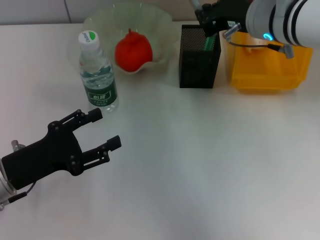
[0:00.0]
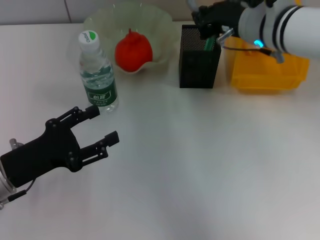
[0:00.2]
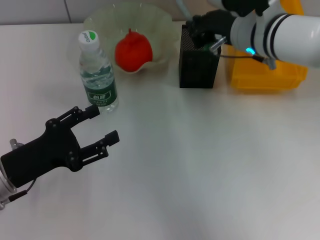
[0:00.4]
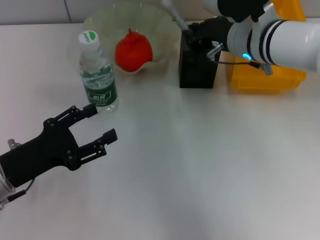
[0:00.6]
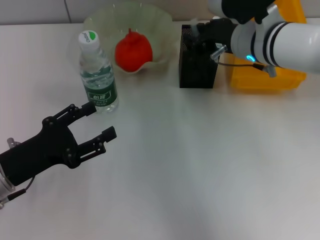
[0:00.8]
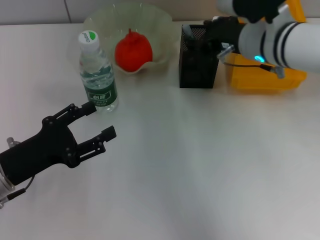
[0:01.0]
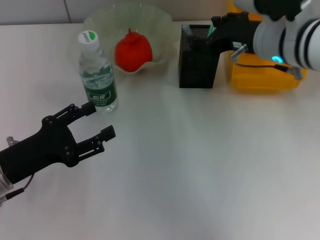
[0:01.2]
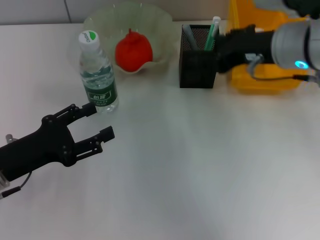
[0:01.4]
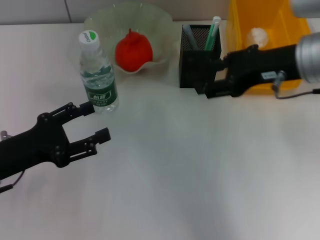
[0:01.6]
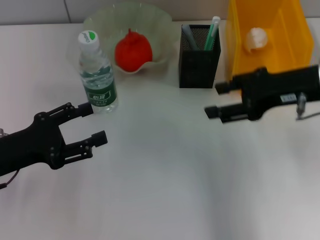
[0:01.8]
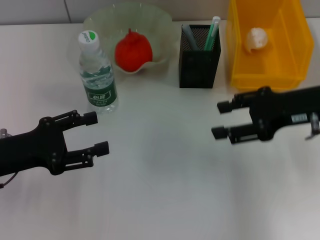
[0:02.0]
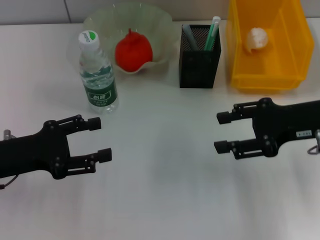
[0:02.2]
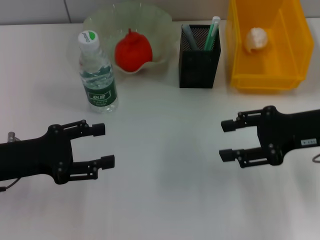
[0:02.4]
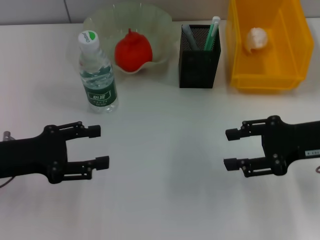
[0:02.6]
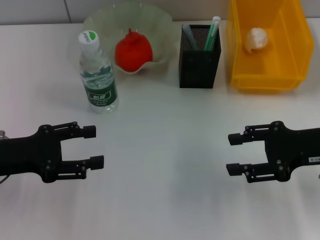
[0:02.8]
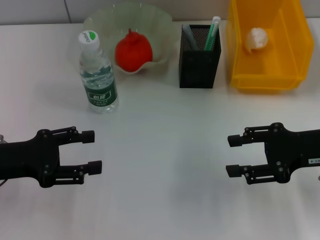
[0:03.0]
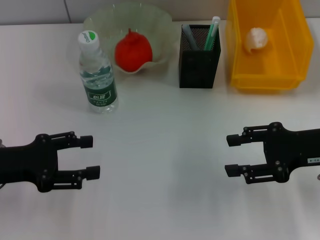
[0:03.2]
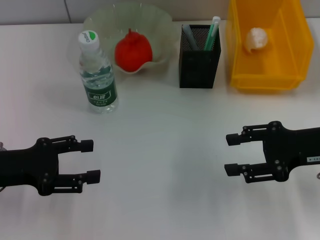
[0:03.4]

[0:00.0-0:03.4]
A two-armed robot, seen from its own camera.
0:00.0 to 0:01.6: The right gripper heads backward and to the right, covering approximately 10 cm, and opens up.
0:01.6 to 0:03.4: The right gripper heads downward, to the right and backward, covering about 10 cm.

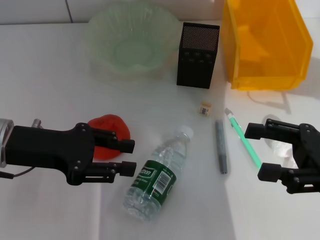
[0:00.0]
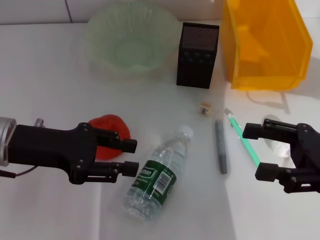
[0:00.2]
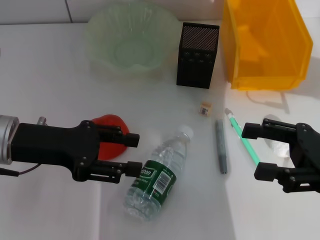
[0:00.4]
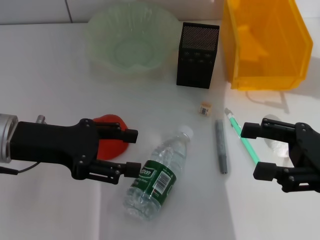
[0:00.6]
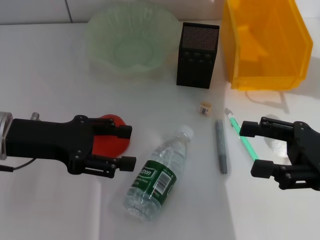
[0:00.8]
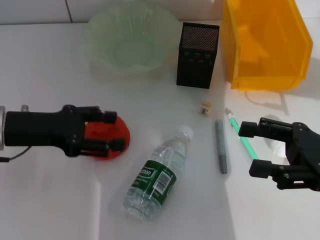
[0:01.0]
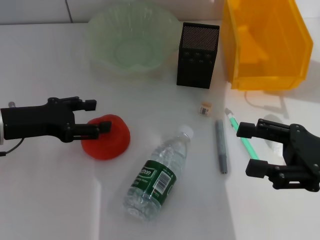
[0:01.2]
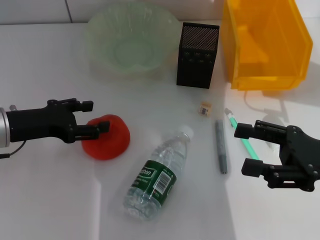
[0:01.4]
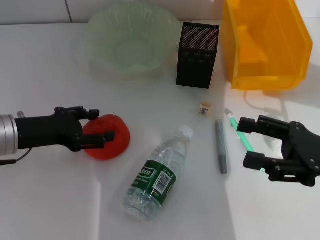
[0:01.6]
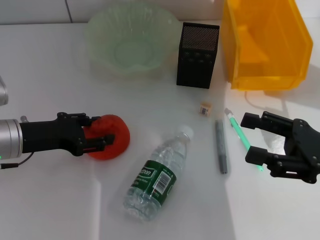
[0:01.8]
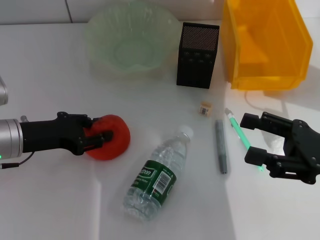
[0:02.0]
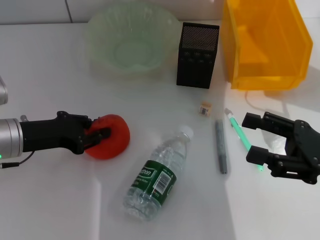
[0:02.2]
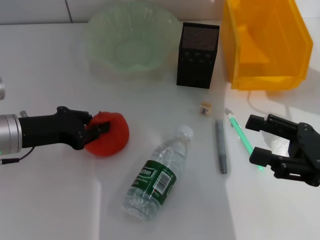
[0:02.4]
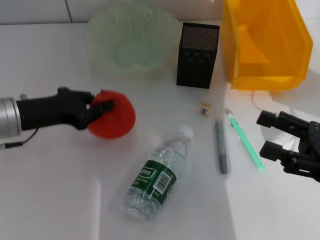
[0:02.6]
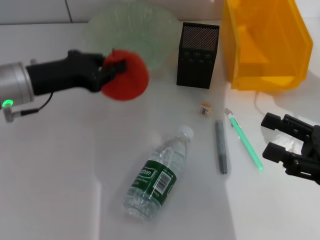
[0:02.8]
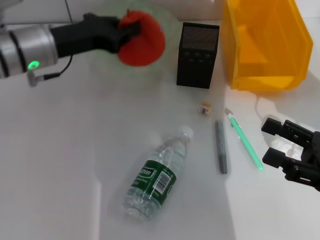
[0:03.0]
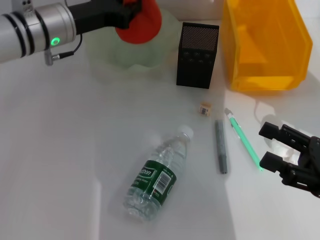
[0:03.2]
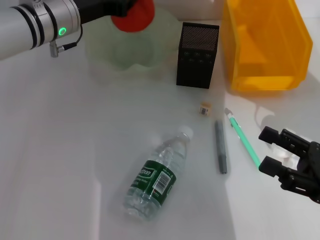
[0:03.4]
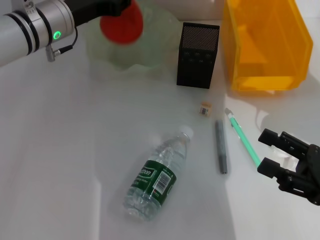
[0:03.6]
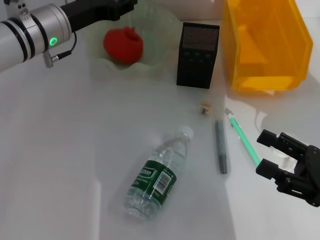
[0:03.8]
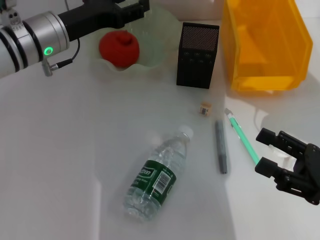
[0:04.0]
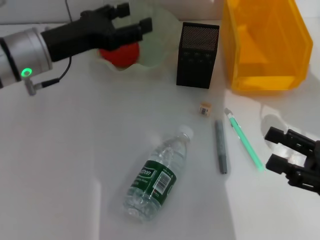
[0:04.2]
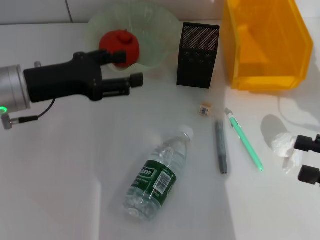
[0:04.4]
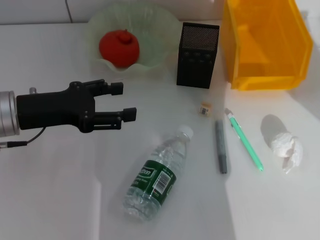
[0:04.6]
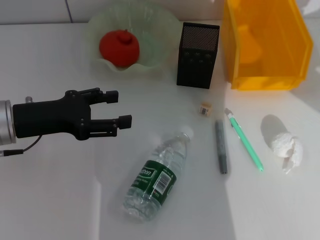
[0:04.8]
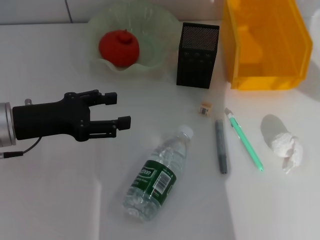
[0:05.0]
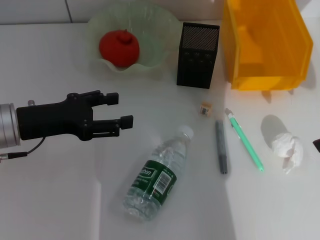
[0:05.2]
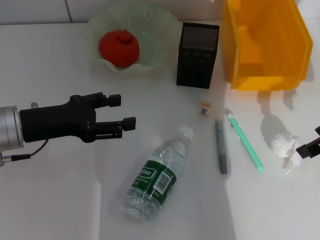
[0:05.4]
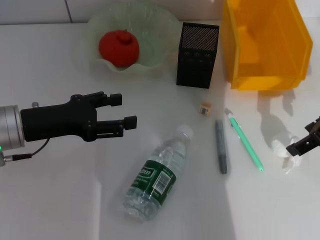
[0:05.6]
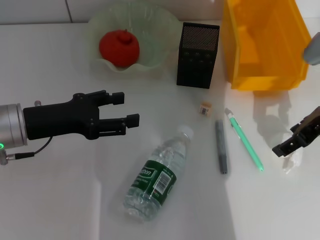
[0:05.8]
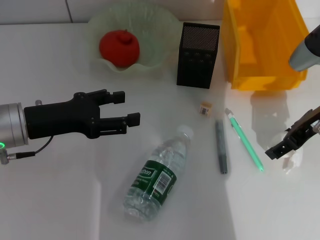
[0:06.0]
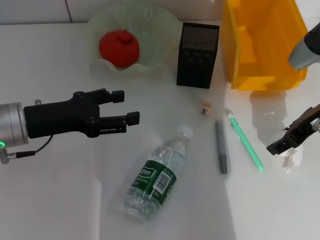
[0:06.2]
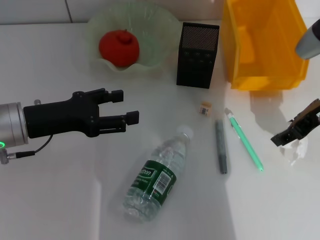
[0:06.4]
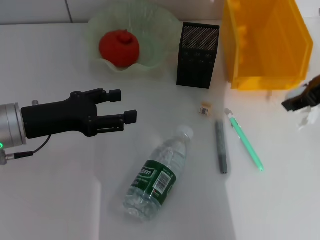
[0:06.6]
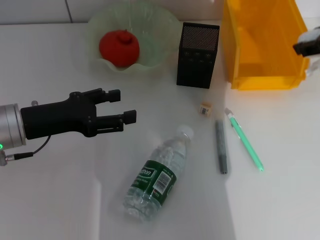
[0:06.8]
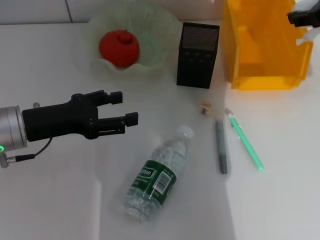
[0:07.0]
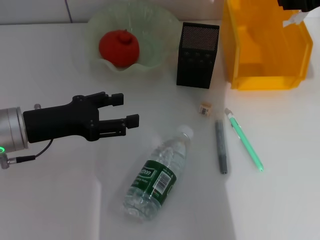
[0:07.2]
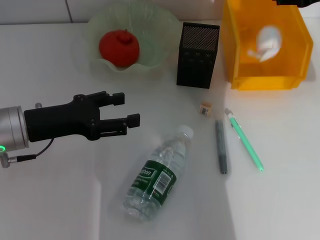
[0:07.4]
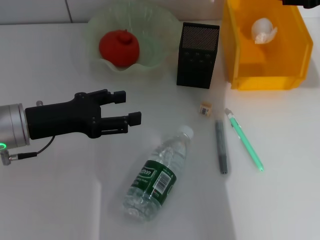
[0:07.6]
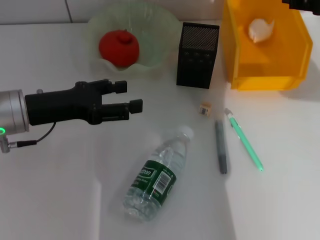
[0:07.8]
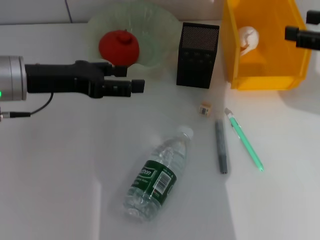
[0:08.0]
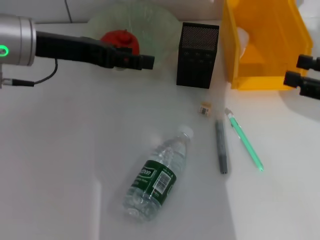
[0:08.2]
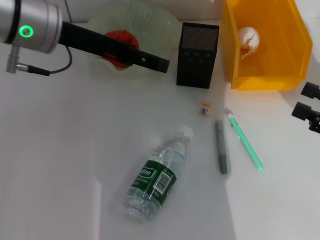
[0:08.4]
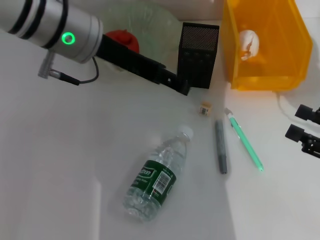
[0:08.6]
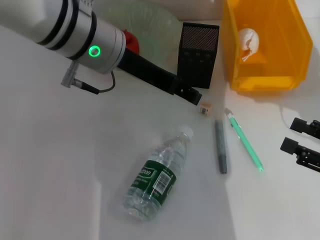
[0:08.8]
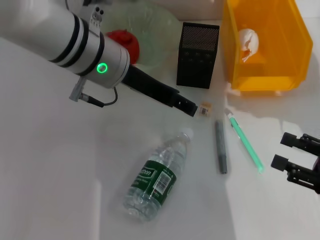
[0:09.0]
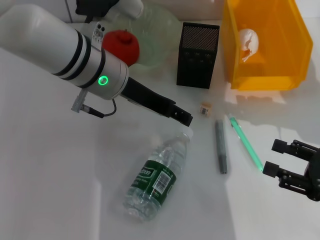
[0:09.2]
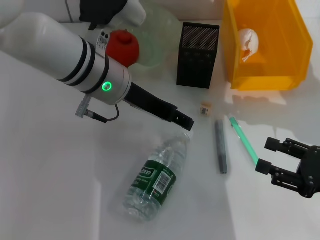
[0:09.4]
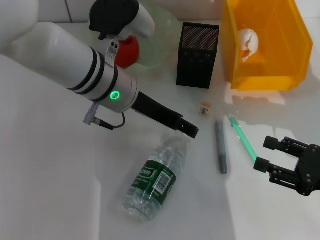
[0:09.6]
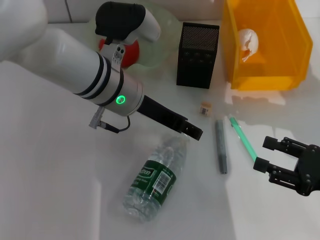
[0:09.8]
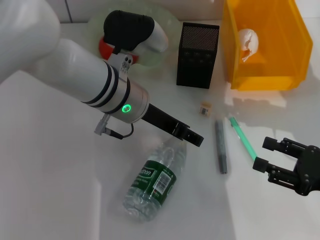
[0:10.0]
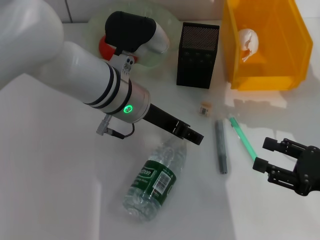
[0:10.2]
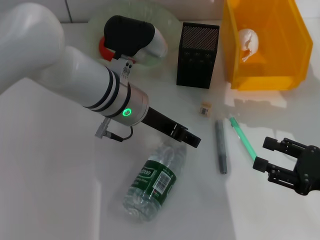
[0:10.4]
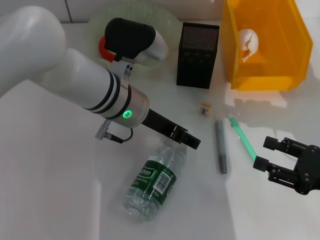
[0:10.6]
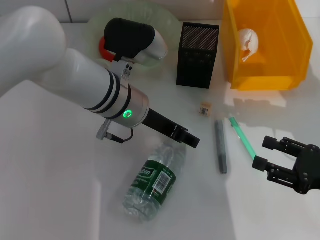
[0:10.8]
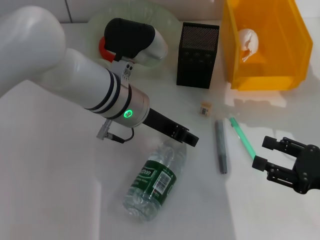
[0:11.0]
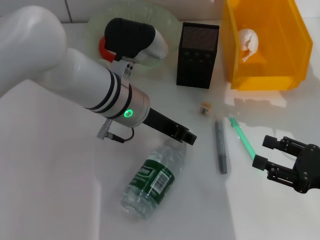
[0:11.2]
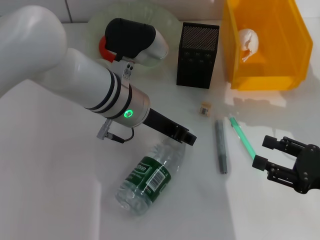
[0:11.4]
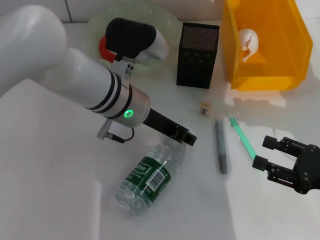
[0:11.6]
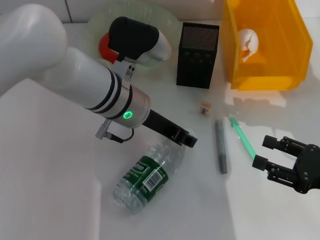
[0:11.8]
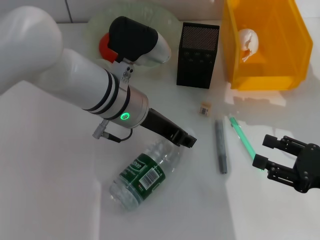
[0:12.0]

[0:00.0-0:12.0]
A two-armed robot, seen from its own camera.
Step, 0:00.0 to 0:02.2: Grab the orange with the left hand.
Step, 0:02.4 to 0:04.0: Place the orange into the fruit bowl with the left hand.
Step, 0:04.2 to 0:06.0: Grab the paper ball with the right hand.
Step, 0:06.2 to 0:07.4: Place the paper ball into the trash can with the right hand.
Step, 0:07.8 to 0:11.2: Grab the water bottle with the left hand.
0:00.0 to 0:01.6: The left gripper changes place by roughly 5 cm.
0:01.6 to 0:03.0: The left gripper is displaced forward, upward and to the right by some 15 cm, and closes its fingers.
0:03.0 to 0:04.4: The right gripper changes place by about 5 cm. The left gripper travels backward by about 5 cm, and opens.
0:04.4 to 0:06.0: The right gripper moves forward and to the left, about 20 cm.
0:06.0 to 0:07.6: The right gripper shifts about 10 cm upward.
0:07.6 to 0:09.0: The left gripper goes approximately 20 cm to the right, upward and forward, while the right gripper goes approximately 25 cm backward and downward.
0:09.0 to 0:10.4: The left gripper shifts approximately 5 cm downward.
0:10.4 to 0:12.0: The left gripper closes up.

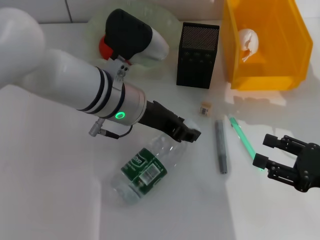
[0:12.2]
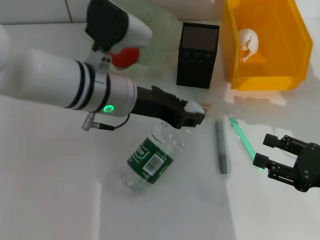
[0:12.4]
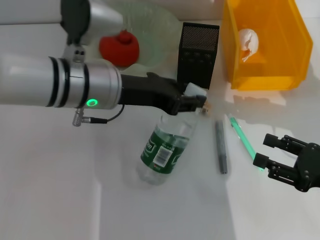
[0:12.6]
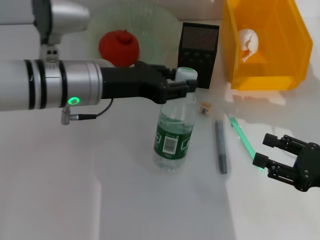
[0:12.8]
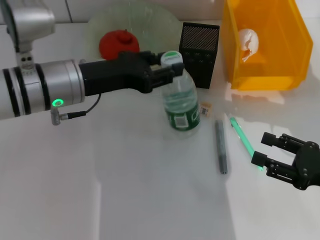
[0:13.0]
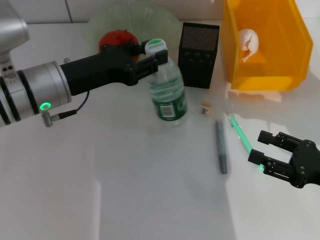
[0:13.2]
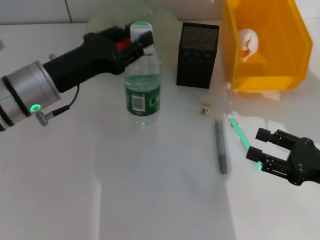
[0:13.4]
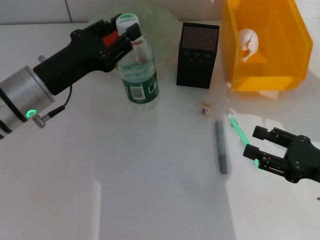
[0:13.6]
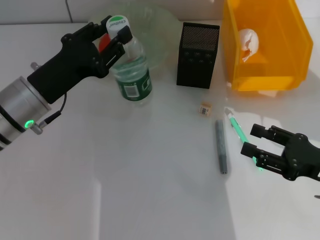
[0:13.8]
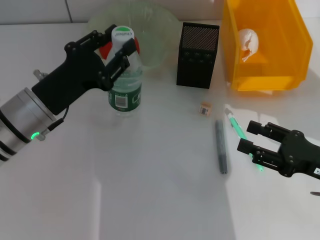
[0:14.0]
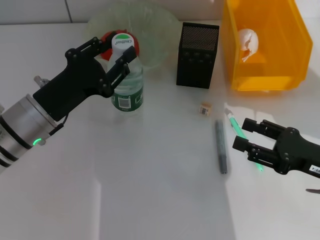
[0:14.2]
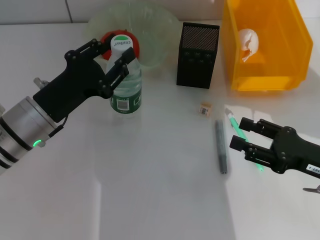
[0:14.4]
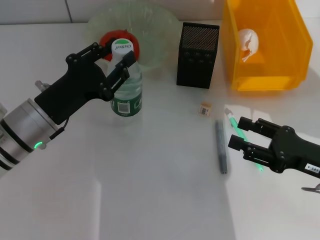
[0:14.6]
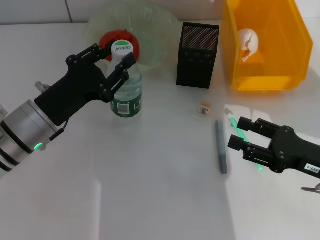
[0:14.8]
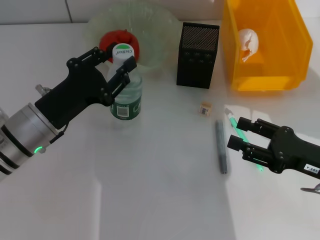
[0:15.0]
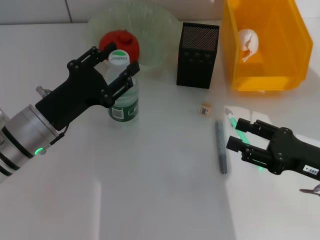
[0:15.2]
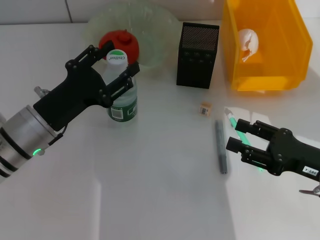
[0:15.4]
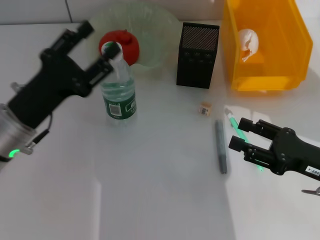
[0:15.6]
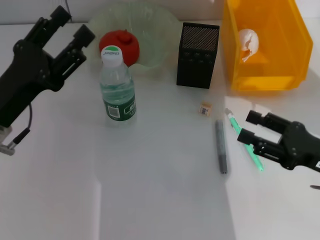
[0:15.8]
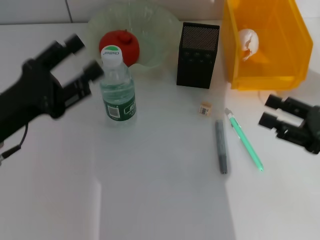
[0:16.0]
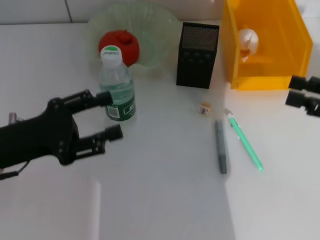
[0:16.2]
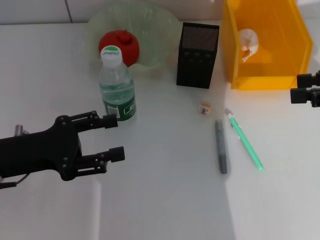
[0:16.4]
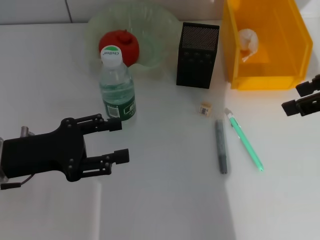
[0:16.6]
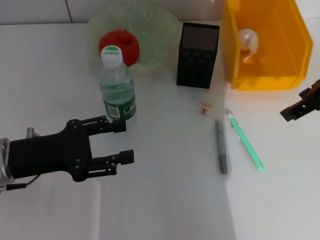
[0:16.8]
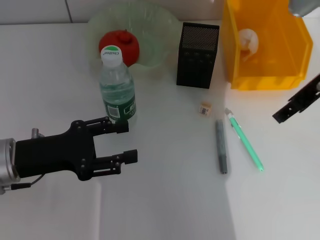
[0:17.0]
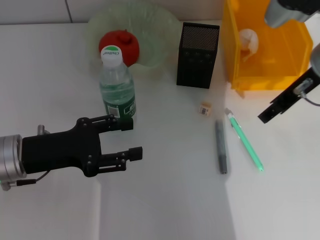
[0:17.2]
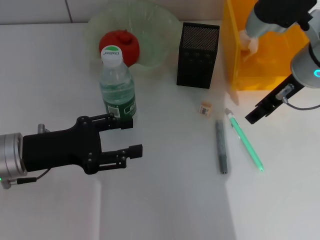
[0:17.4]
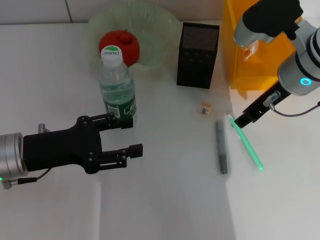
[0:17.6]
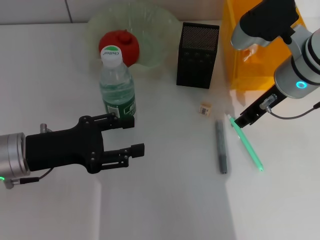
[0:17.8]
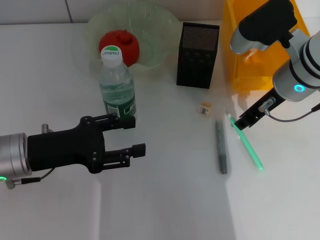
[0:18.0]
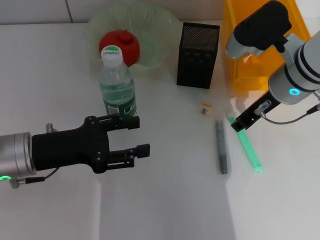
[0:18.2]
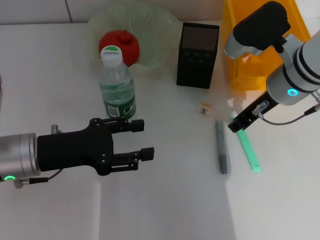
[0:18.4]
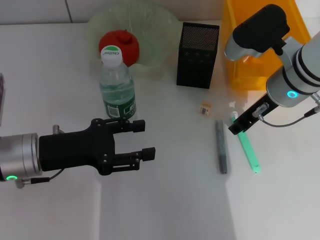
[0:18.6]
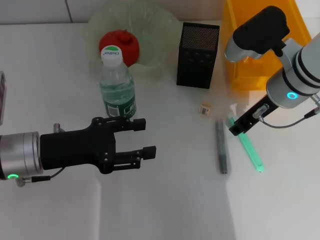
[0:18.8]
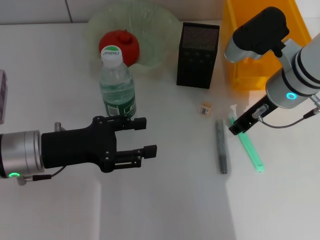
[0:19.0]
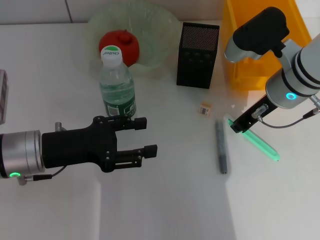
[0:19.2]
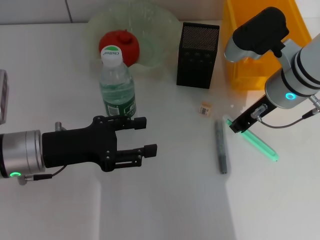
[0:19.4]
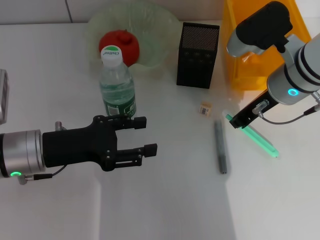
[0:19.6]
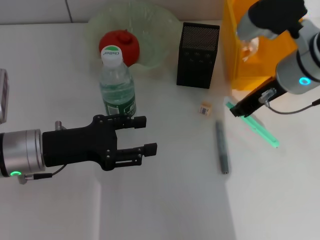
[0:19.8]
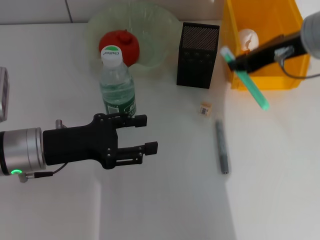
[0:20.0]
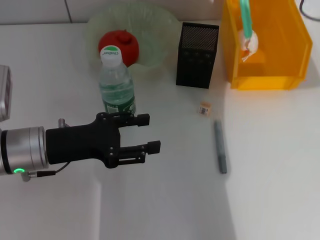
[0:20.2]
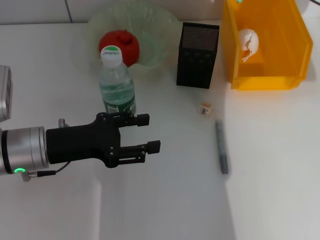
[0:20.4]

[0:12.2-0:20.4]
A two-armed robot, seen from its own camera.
Step, 0:12.2 to 0:15.4: Place the water bottle on the table with the left hand.
Step, 0:15.6 to 0:19.4: Grab the blue utility knife with the right hand.
0:12.2 to 0:13.8: The left gripper shifts roughly 15 cm to the left.
0:13.8 to 0:15.4: There are only small adjustments of the grippers.
0:15.4 to 0:17.2: The right gripper travels upward, forward and to the left by approximately 20 cm.
0:17.2 to 0:18.8: The right gripper is displaced downward by some 5 cm, and closes up.
0:18.8 to 0:20.4: The right gripper goes roughly 10 cm to the right and upward.
